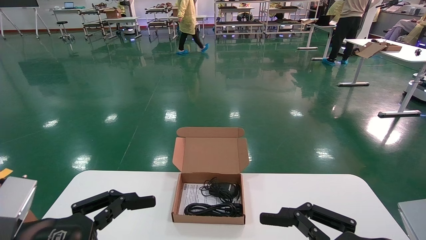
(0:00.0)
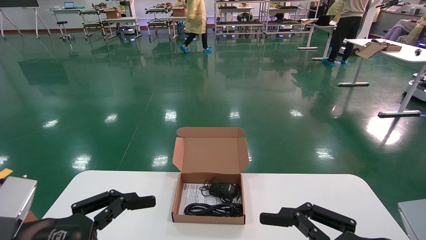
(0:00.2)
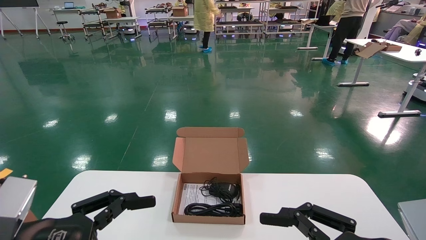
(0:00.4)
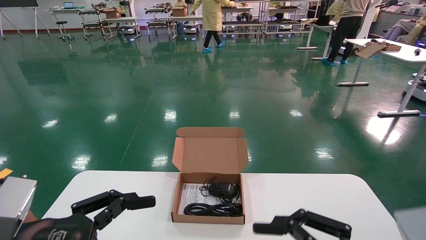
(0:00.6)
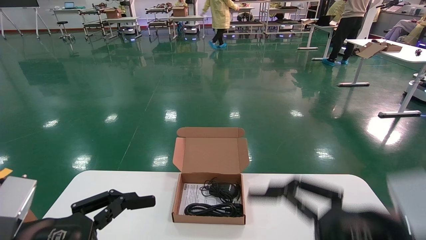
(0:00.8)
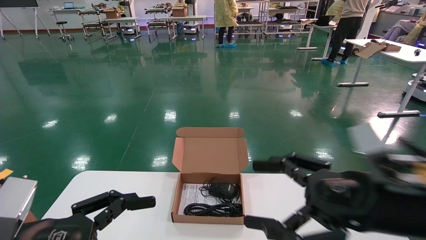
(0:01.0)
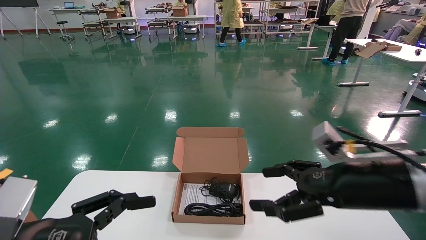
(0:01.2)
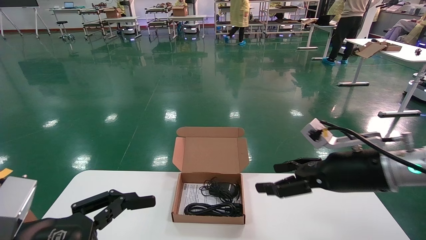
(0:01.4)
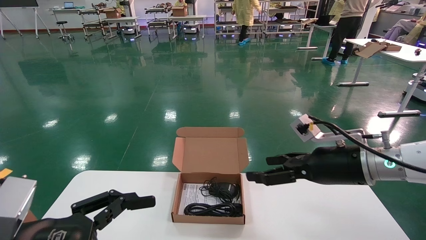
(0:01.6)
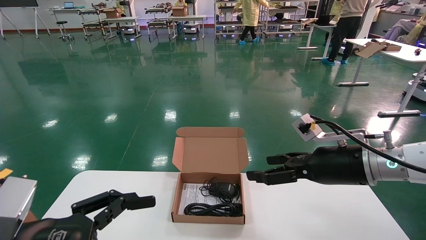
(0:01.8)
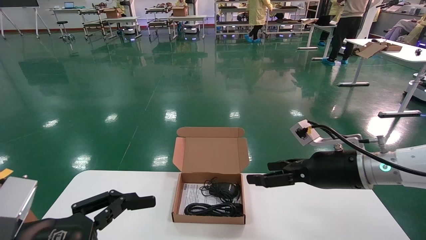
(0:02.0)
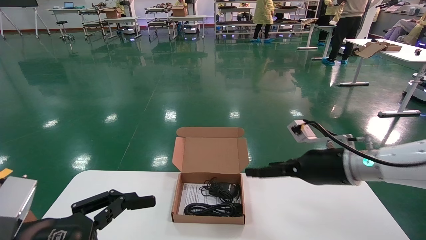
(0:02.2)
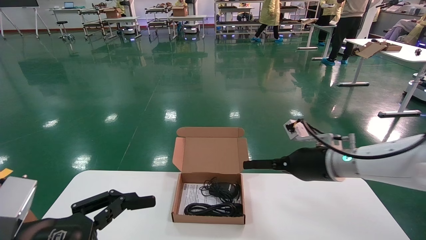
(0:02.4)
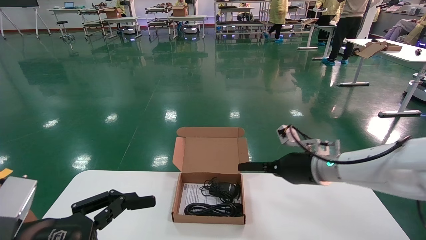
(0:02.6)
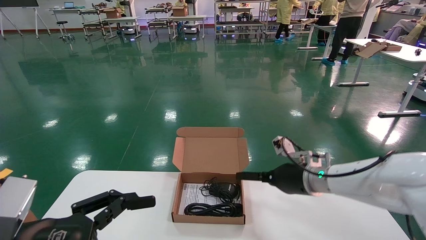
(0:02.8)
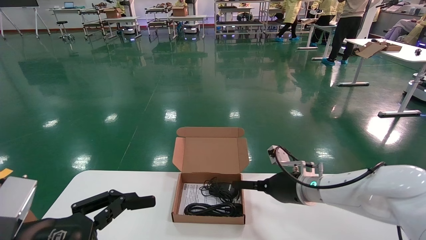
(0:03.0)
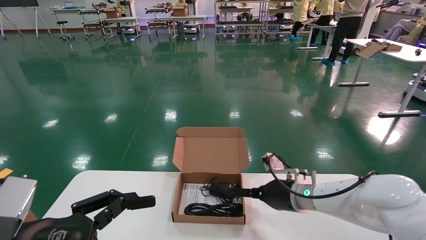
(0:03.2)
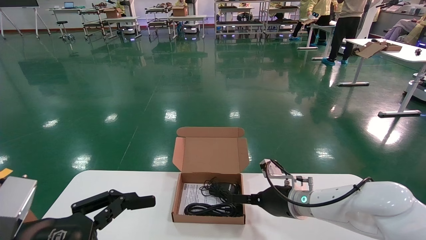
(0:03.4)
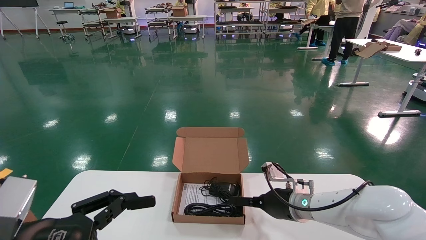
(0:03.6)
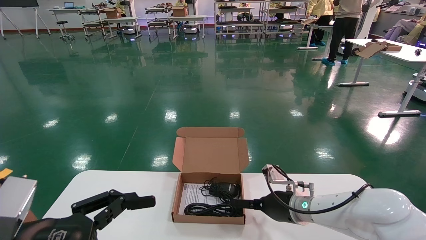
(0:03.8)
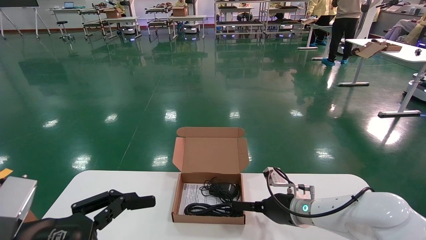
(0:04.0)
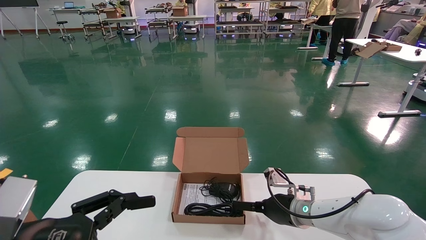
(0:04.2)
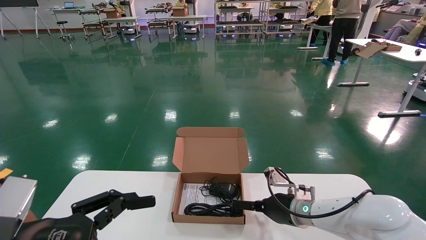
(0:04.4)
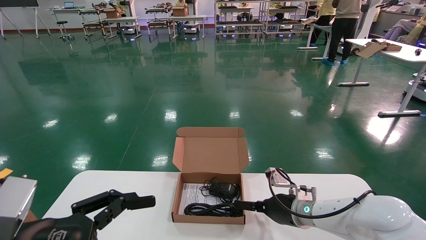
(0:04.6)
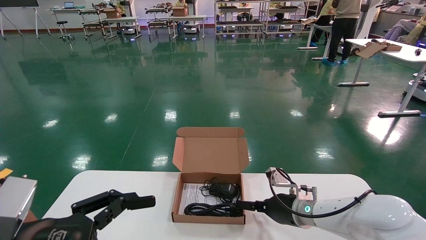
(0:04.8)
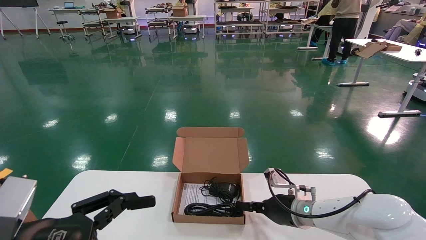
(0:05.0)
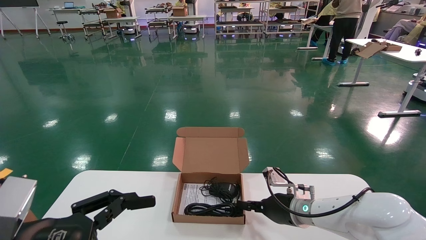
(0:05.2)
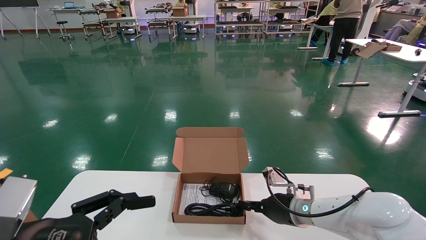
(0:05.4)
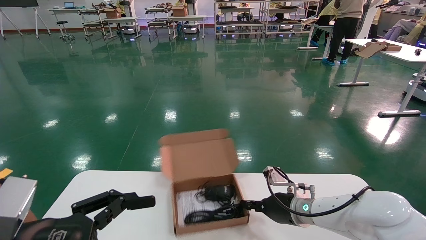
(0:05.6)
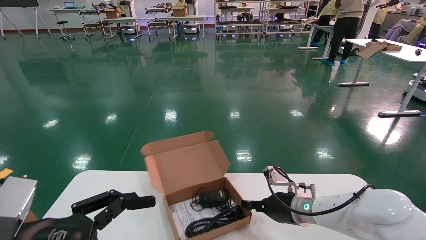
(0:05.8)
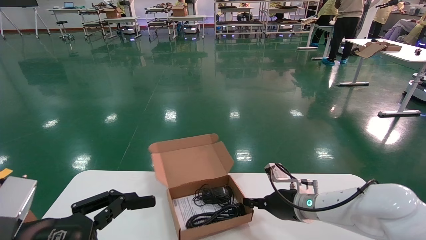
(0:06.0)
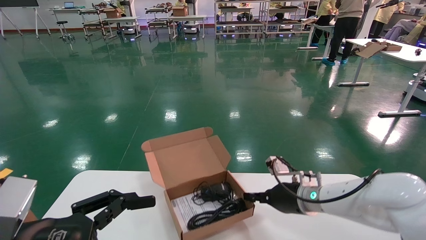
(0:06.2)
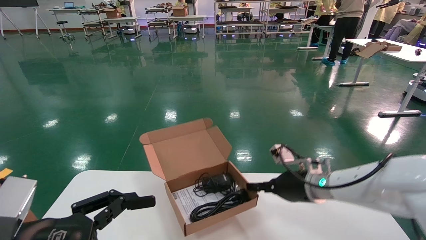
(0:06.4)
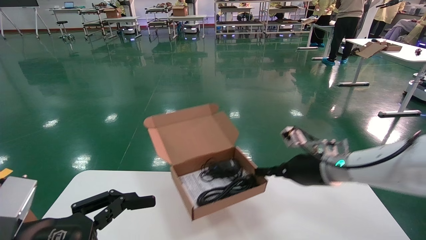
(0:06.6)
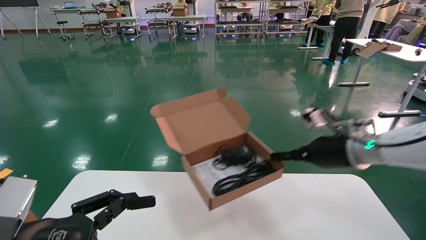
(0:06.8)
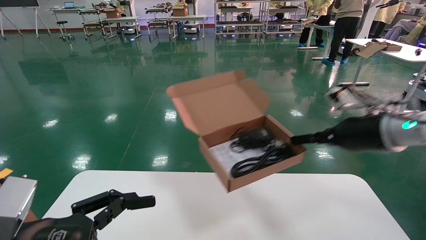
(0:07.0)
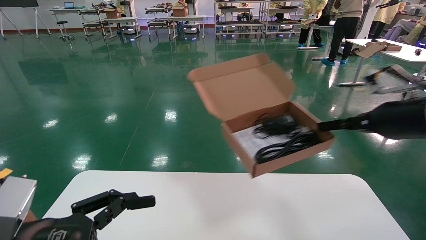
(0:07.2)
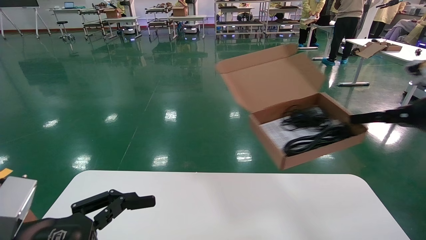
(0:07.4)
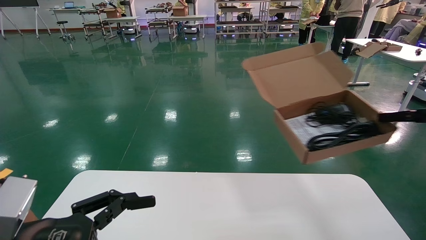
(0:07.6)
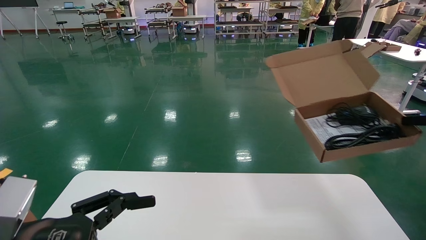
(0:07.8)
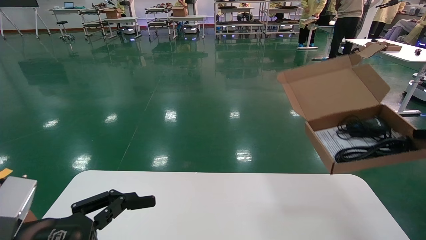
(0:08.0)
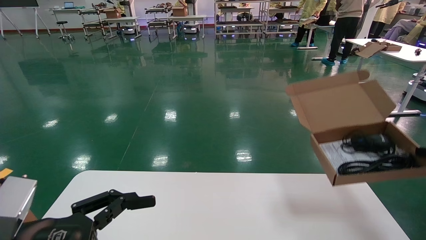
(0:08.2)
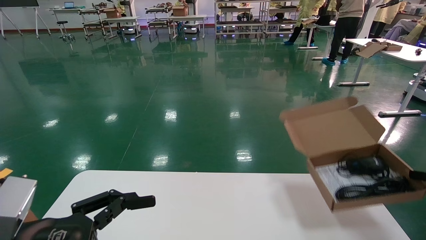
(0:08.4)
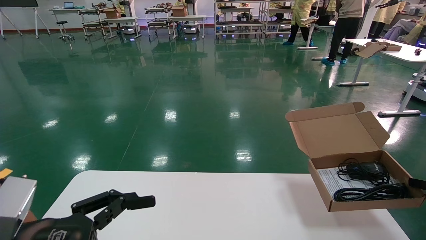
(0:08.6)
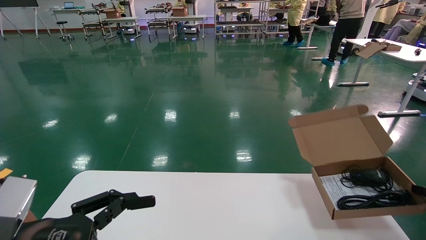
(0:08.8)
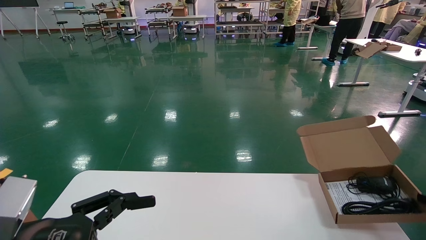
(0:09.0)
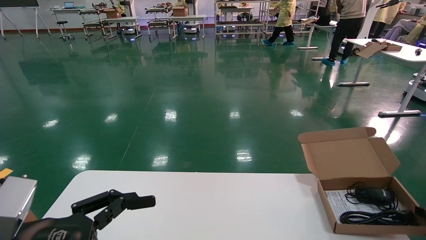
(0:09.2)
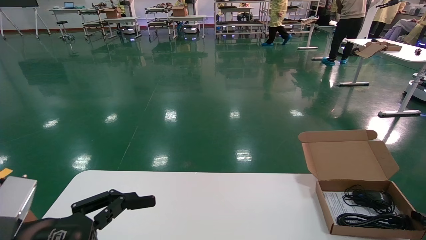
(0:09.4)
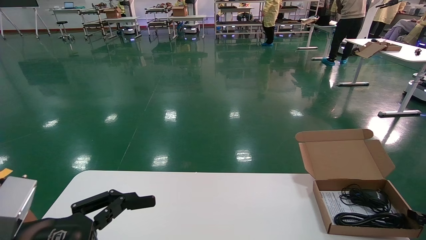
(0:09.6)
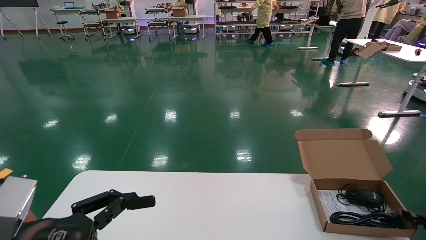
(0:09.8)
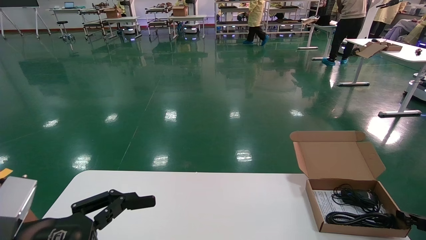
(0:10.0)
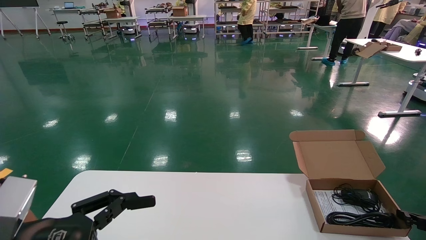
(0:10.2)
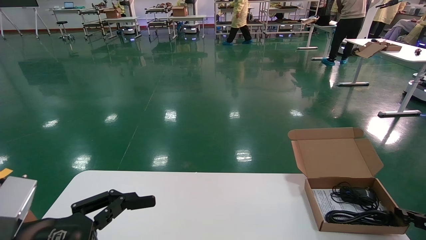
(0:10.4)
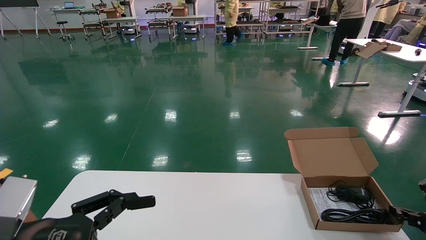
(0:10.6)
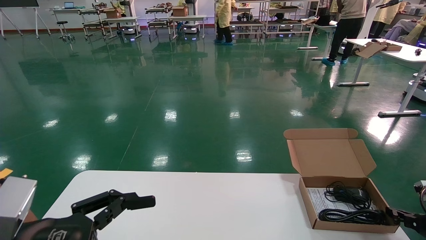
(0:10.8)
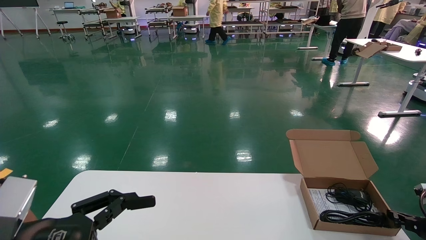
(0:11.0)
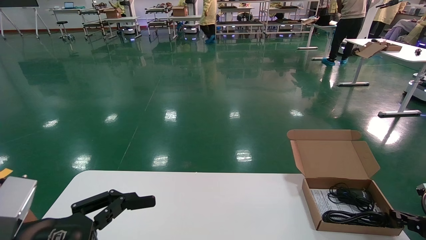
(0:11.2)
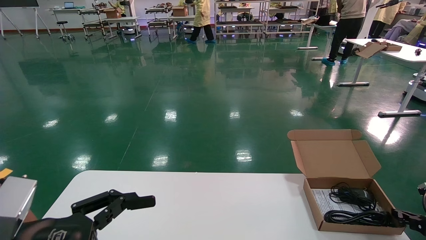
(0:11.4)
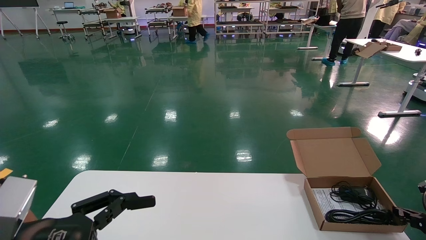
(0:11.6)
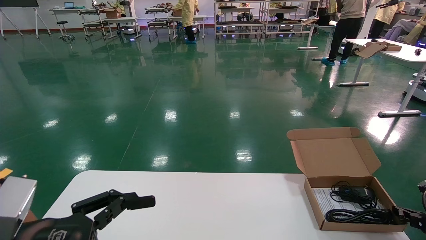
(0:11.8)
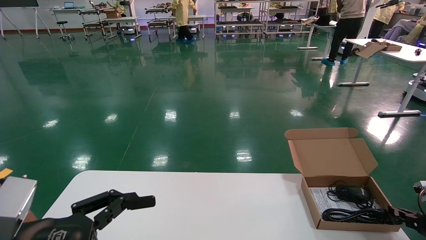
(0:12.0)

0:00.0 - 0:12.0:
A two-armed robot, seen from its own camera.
Task of the whole recording: move the position of the storage box with accessories on the table.
Step, 0:01.0 - 0:05.8: Grab and pick up the open mouse box from the accessory packaging area.
0:00.0 - 0:01.6: The right gripper travels forward by some 20 cm.
0:01.6 - 0:03.0: The right gripper travels forward, downward and to the left by roughly 15 cm.
0:03.0 - 0:04.4: The right gripper shifts roughly 5 cm downward.
0:04.4 - 0:06.0: The right gripper closes up.
0:06.0 - 0:07.6: The right gripper shifts roughly 35 cm to the right, upward and backward.
0:07.6 - 0:09.0: The right gripper shifts about 20 cm downward and to the right.
0:09.0 - 0:10.4: The right gripper goes some 5 cm downward.
0:10.4 - 0:12.0: The grippers make only small movements.

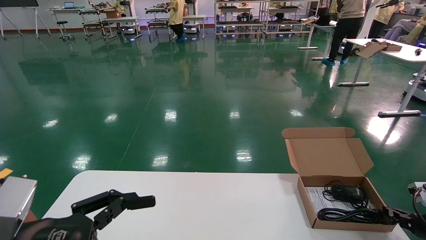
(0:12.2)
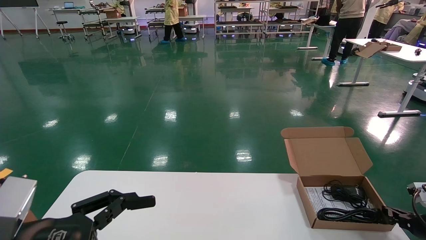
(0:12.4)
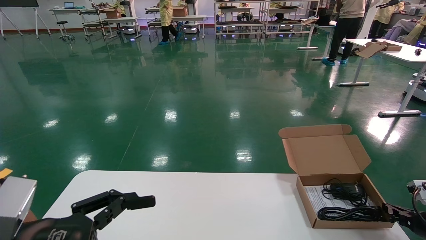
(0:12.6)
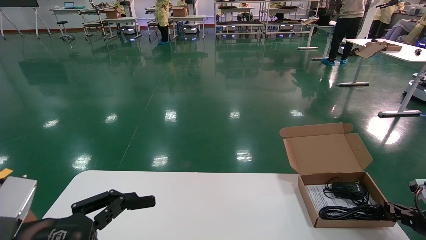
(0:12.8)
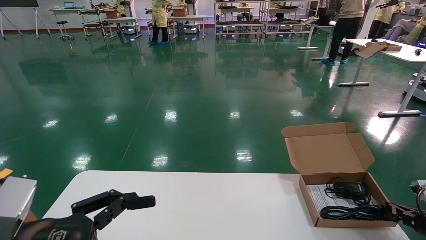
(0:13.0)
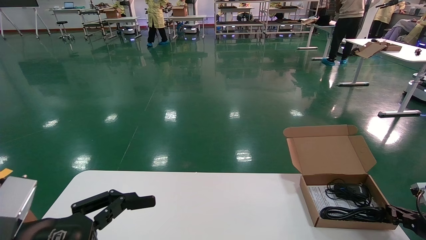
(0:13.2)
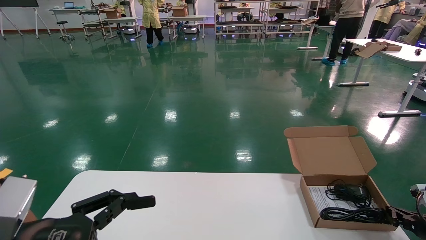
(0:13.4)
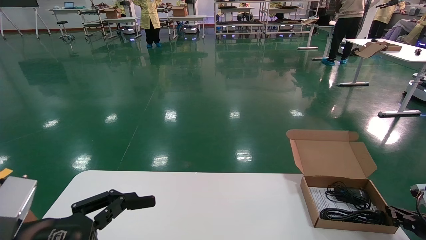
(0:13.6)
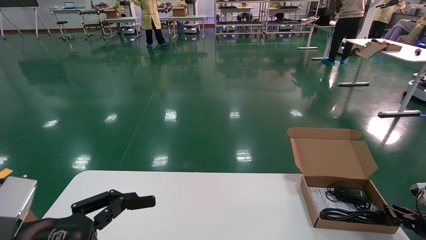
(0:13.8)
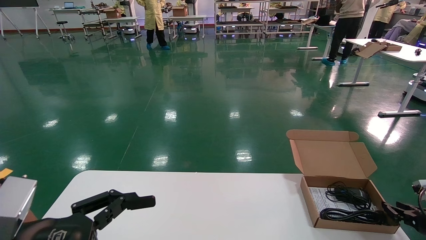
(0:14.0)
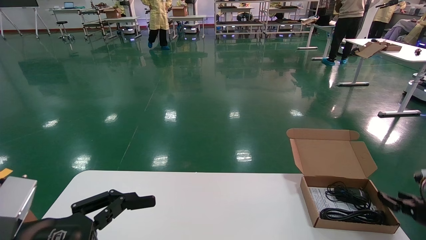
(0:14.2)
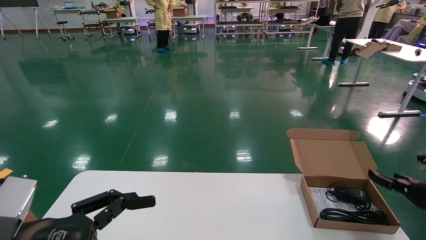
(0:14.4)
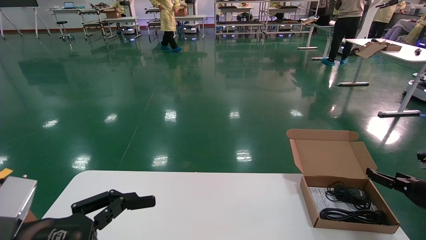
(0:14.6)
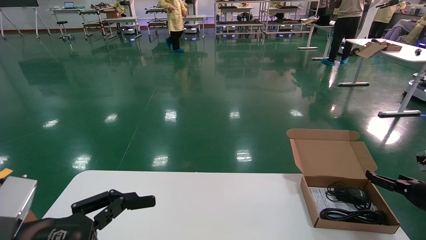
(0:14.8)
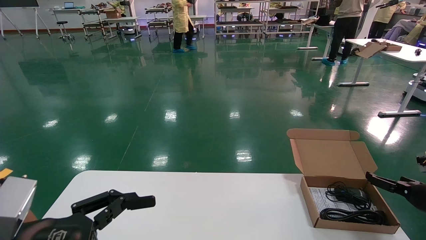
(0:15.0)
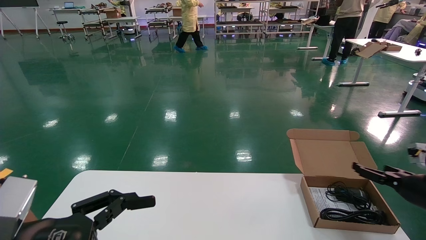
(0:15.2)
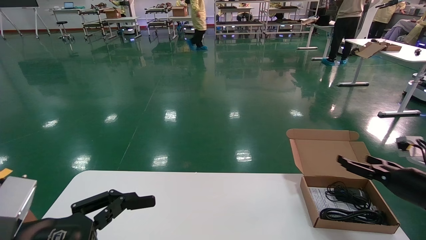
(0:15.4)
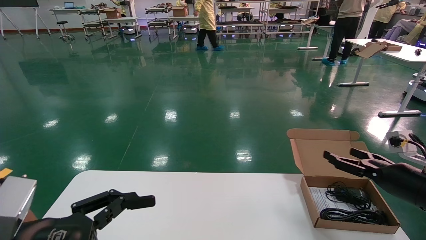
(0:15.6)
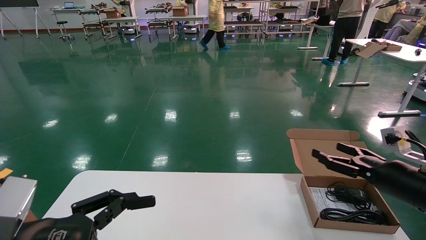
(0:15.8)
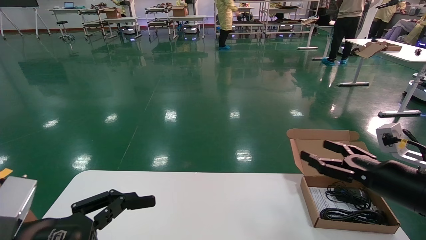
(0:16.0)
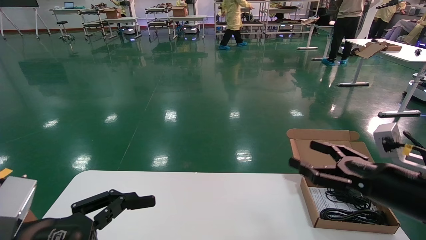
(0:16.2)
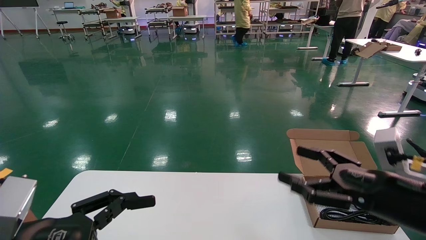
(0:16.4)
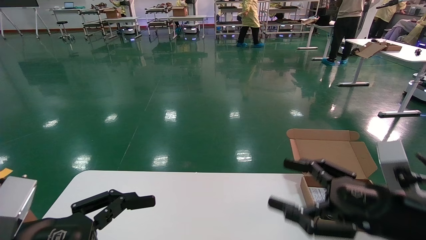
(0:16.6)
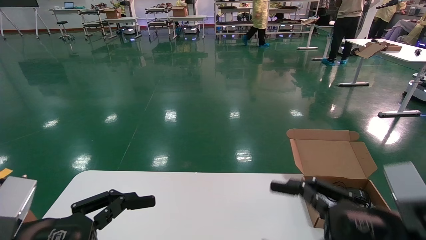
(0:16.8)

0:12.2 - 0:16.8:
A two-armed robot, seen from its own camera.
Task of the whole recording: move the position of the storage box with accessories on the table.
0:12.2 - 0:13.8: Both grippers stay about where they are.
0:13.8 - 0:15.2: The right gripper moves upward, approximately 10 cm, and opens its fingers.
0:15.2 - 0:16.8: The right gripper is displaced backward and to the left by some 25 cm.
